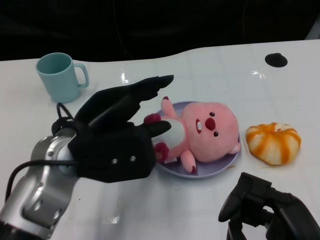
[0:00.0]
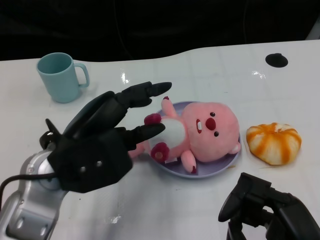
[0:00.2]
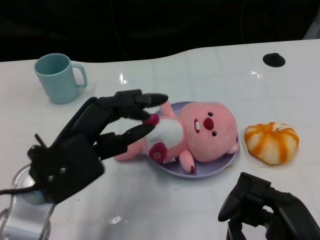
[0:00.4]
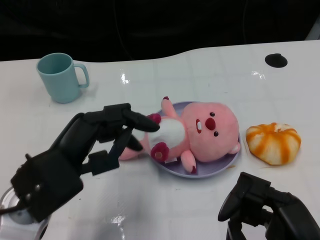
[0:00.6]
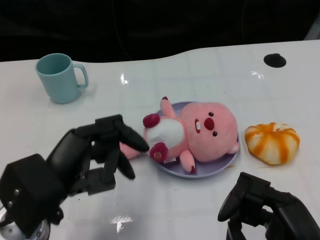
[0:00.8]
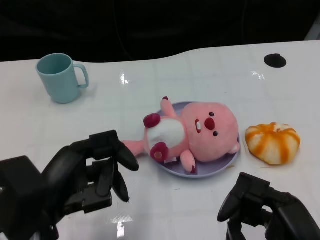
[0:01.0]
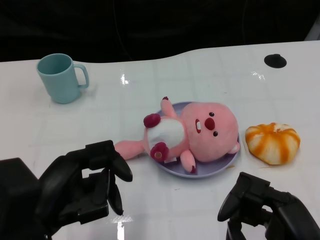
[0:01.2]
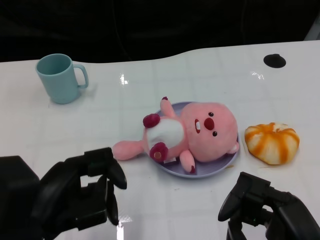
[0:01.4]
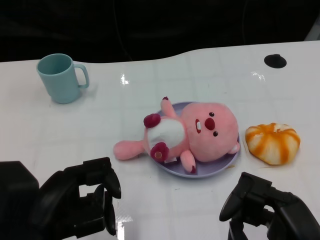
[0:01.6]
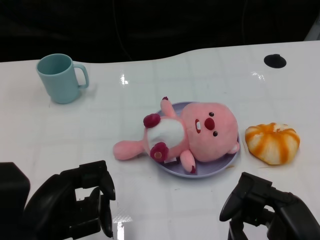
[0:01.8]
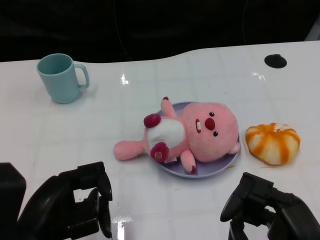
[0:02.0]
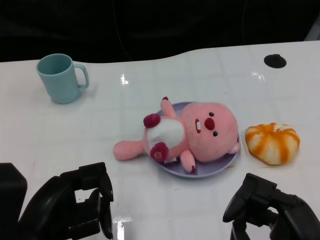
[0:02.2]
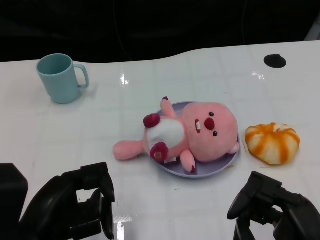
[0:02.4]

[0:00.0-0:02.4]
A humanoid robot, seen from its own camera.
Task of the whole recording: Pick up the doll on one side of the plate and place it into the plate.
0:00.0 to 0:01.2: The left hand shifts about 10 cm backward and to the left.
0:01.2 to 0:02.4: The hands make only small movements.

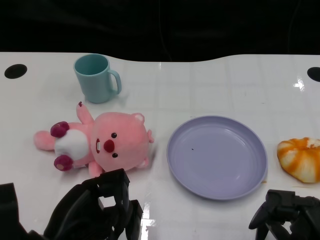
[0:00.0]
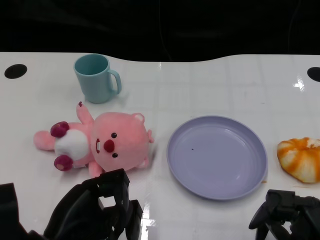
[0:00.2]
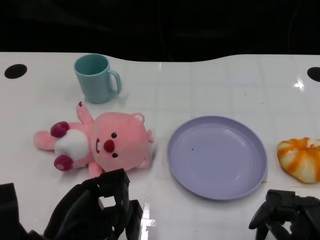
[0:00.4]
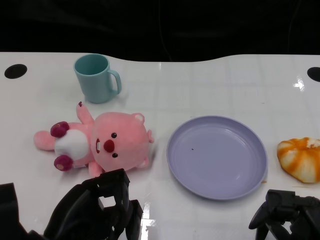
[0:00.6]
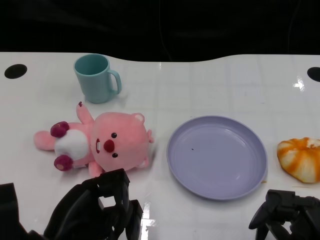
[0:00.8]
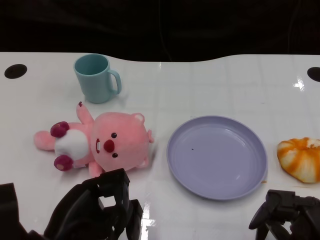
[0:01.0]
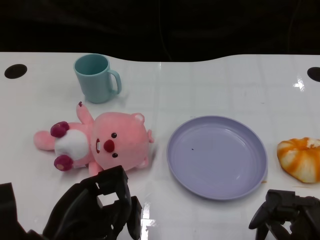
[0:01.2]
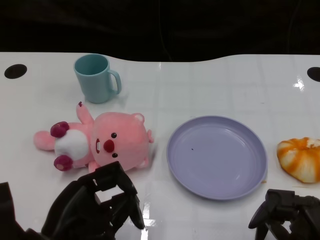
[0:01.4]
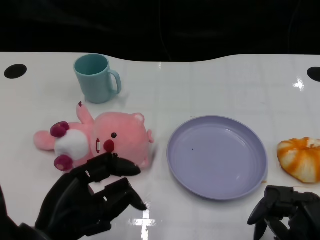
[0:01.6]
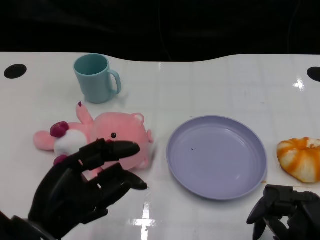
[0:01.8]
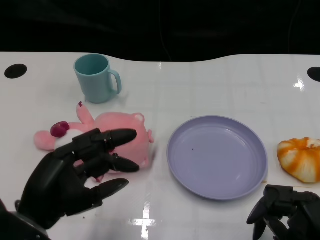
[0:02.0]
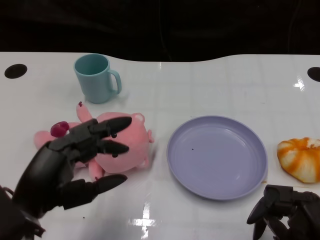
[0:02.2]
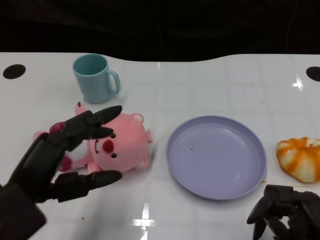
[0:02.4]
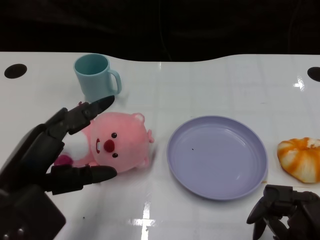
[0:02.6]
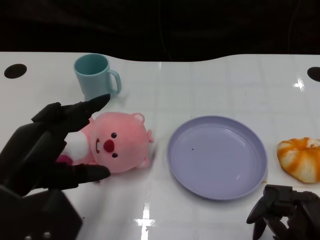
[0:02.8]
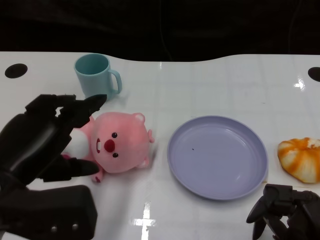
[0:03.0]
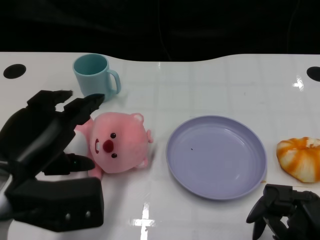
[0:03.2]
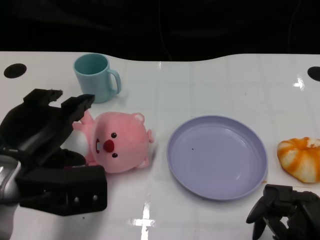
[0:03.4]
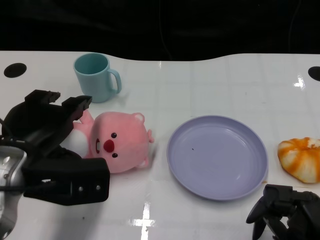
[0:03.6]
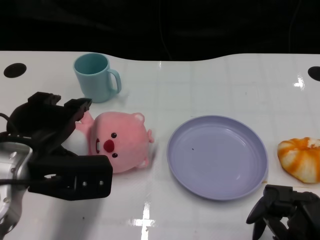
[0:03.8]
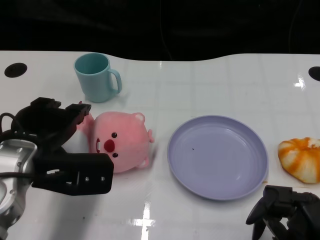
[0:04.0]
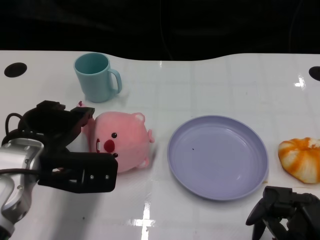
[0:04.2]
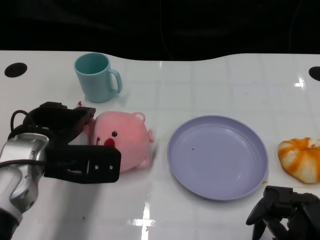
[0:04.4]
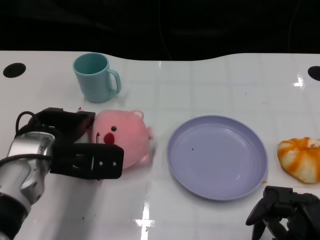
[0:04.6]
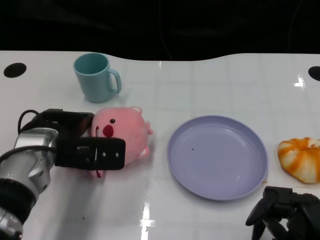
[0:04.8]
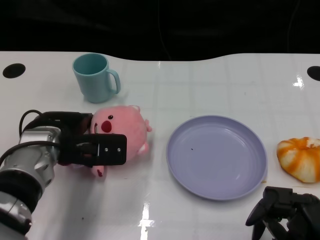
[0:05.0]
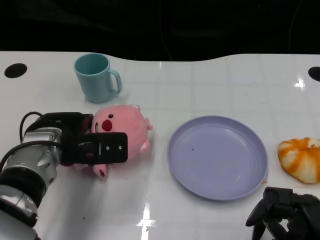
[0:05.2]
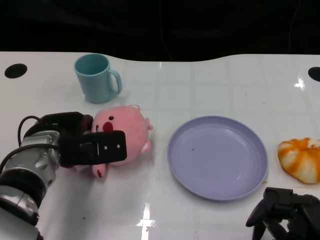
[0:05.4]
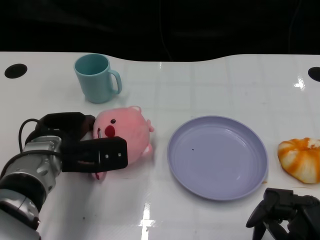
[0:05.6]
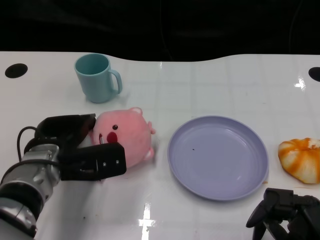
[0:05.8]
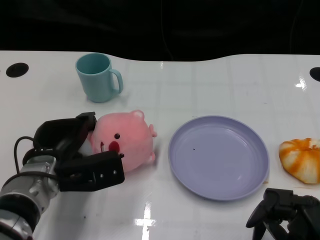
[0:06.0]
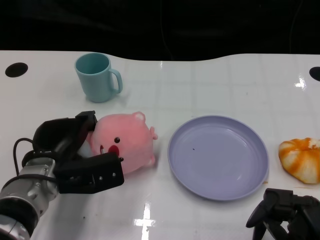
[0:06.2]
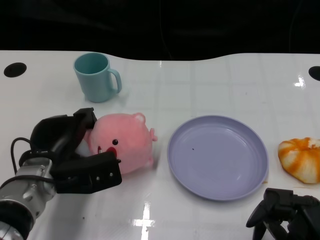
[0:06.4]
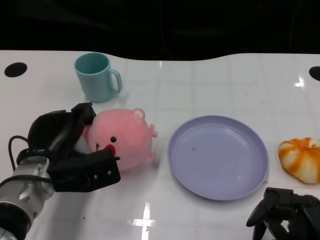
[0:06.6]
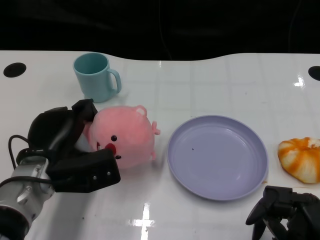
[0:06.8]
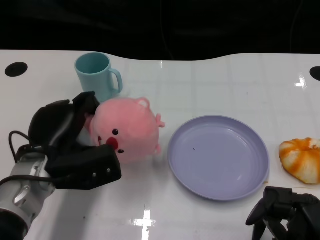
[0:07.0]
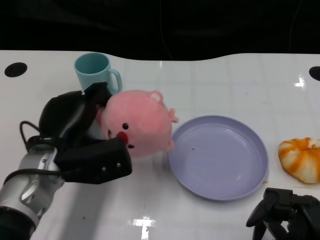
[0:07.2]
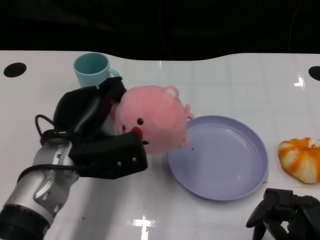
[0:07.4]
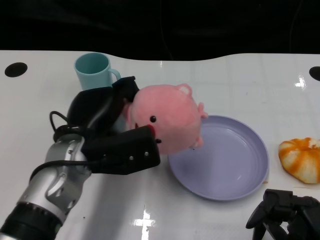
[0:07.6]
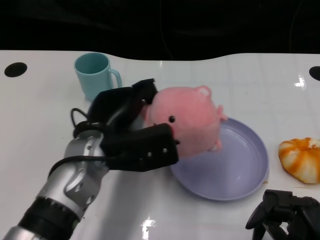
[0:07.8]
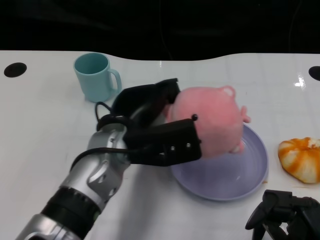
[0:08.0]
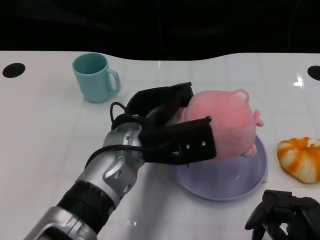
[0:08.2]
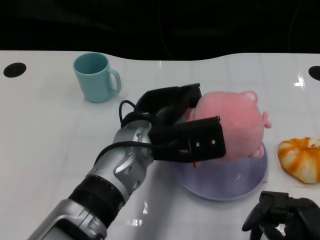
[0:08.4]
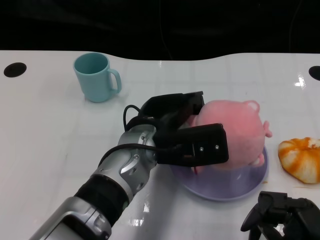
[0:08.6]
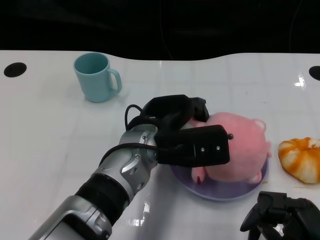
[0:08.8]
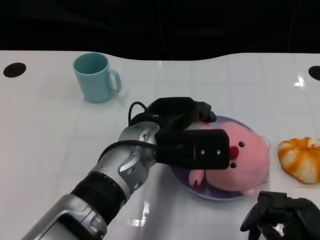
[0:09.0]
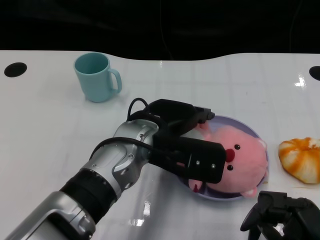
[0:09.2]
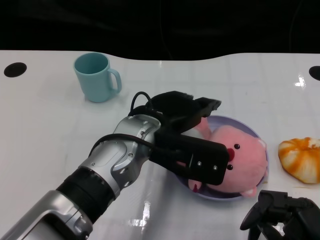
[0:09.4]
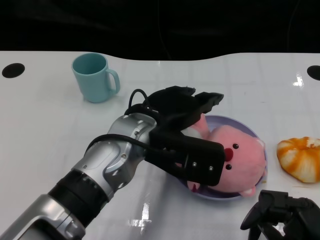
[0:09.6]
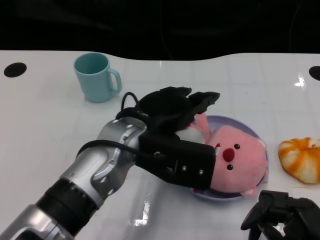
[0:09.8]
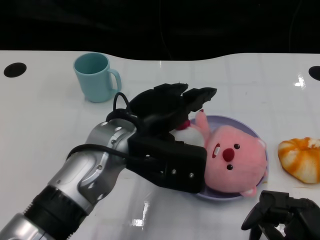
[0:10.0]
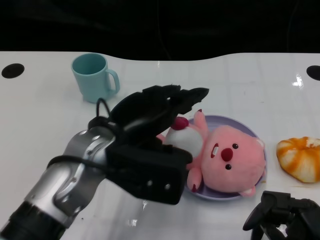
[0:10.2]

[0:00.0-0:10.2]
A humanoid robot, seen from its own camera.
Task of the whole recording: Pick up the doll on one side of the plate and place it into the plate.
Step, 0:01.2 to 0:06.2: Grasp the pink doll with the left gripper.
Step, 0:06.4 to 0:09.8: Place the pink doll into the plate with the left gripper.
0:01.4 to 0:03.0: The left hand is displaced upward by roughly 10 cm.
0:03.0 to 0:04.4: The left hand travels forward by approximately 10 cm.
0:04.4 to 0:05.8: The left hand is displaced downward by approximately 5 cm.
0:07.2 to 0:08.8: The left hand is displaced to the right by some 15 cm.
0:08.8 to 0:10.2: The left hand heads to the left, covering about 5 cm.

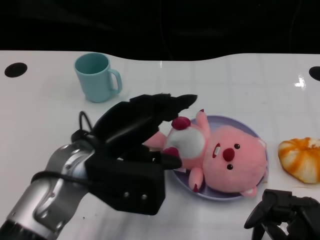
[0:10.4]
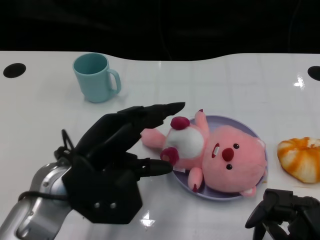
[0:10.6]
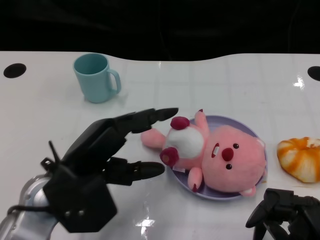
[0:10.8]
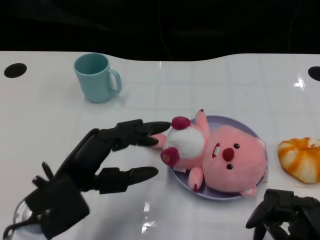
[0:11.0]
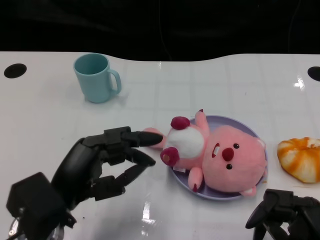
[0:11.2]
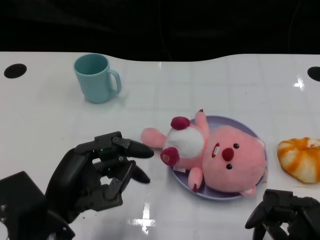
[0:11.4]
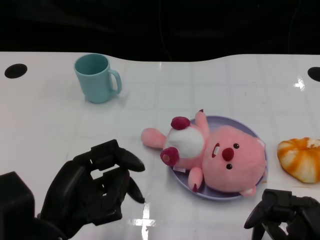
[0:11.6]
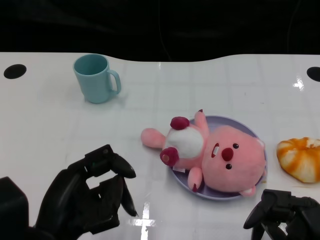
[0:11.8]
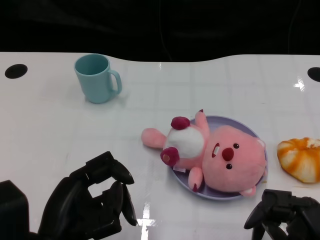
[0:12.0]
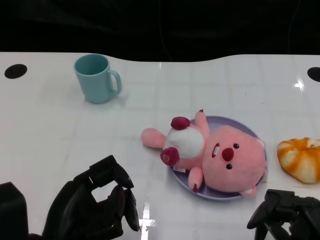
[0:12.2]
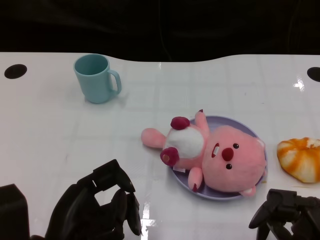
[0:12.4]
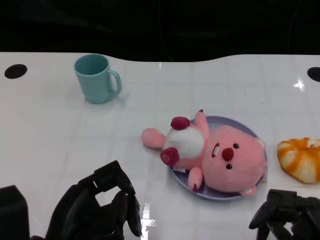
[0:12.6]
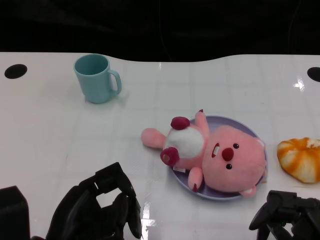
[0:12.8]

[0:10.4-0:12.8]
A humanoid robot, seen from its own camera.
Task of the whole recording: Pick up the doll on one side of the plate and place it into the plate.
0:10.4 to 0:11.6: The left hand heads backward and to the left, covering about 10 cm.
0:11.6 to 0:12.8: There are only small adjustments of the hands.

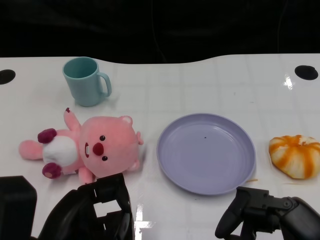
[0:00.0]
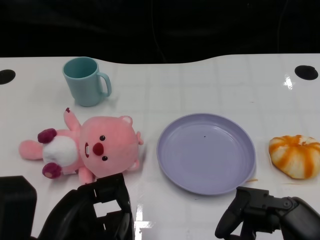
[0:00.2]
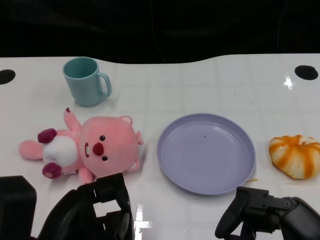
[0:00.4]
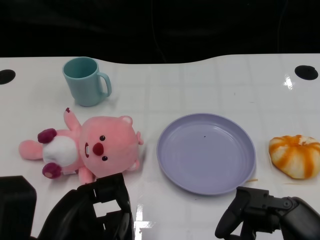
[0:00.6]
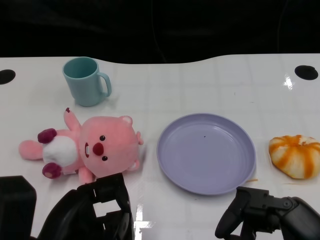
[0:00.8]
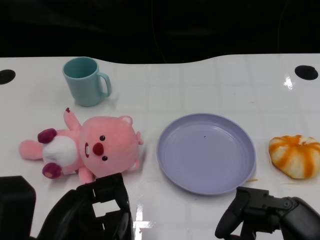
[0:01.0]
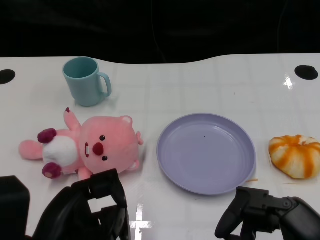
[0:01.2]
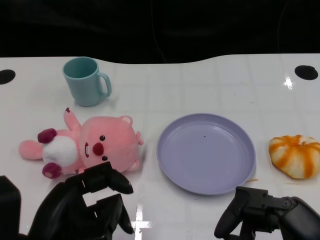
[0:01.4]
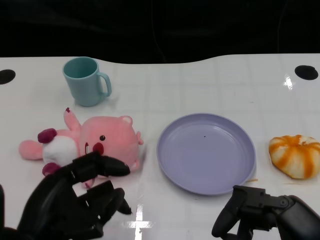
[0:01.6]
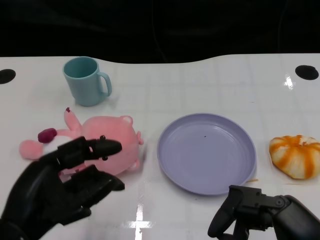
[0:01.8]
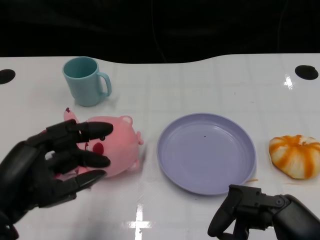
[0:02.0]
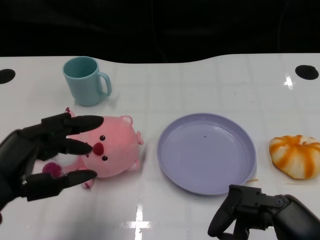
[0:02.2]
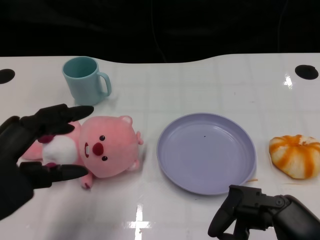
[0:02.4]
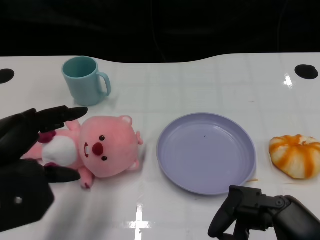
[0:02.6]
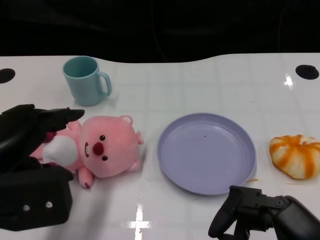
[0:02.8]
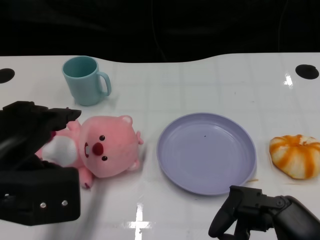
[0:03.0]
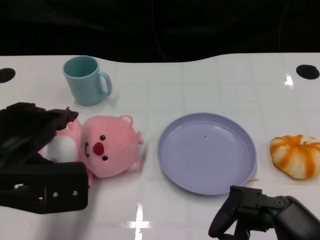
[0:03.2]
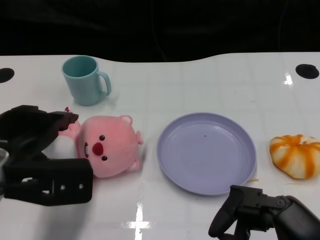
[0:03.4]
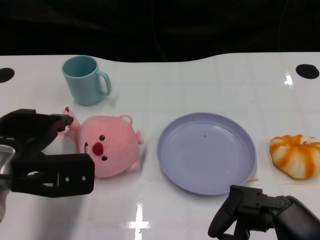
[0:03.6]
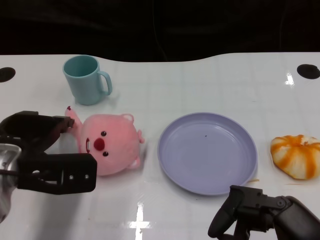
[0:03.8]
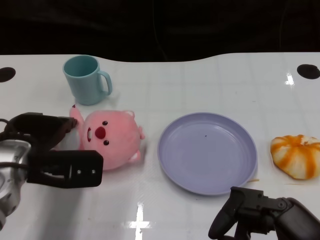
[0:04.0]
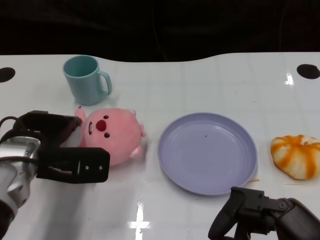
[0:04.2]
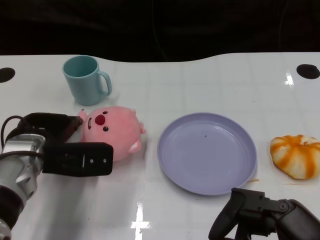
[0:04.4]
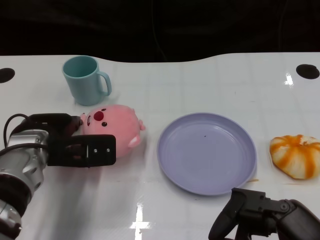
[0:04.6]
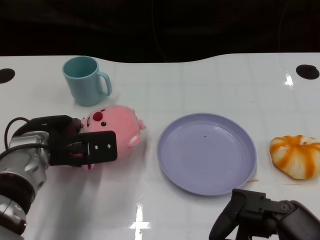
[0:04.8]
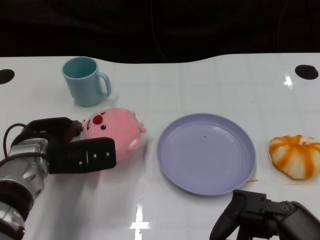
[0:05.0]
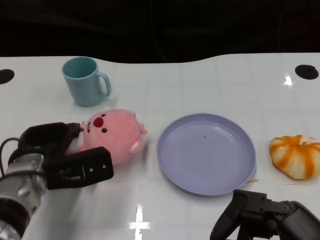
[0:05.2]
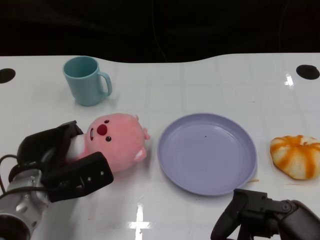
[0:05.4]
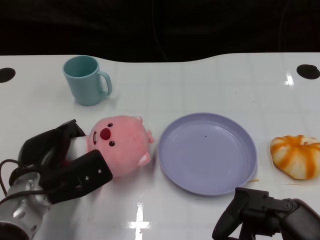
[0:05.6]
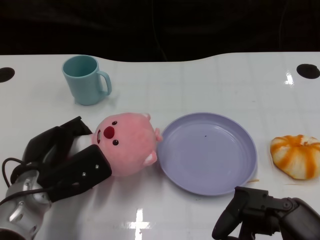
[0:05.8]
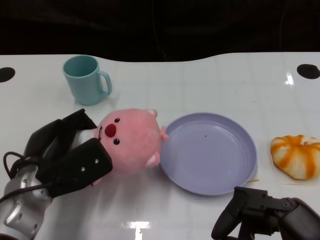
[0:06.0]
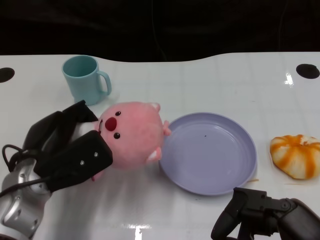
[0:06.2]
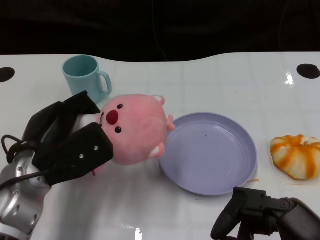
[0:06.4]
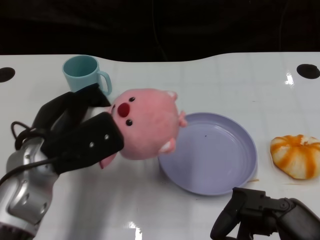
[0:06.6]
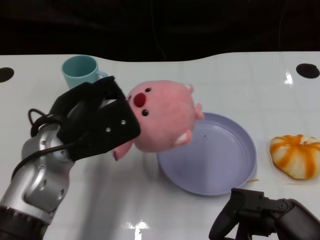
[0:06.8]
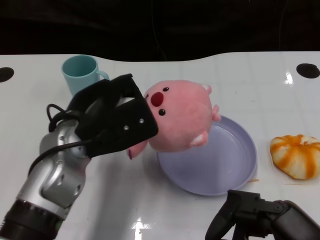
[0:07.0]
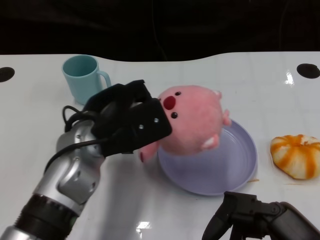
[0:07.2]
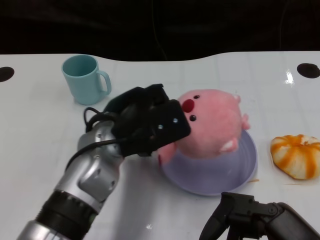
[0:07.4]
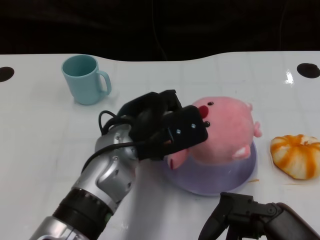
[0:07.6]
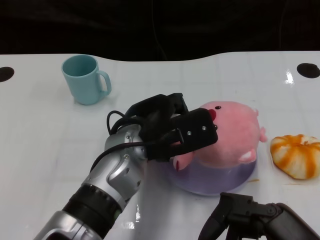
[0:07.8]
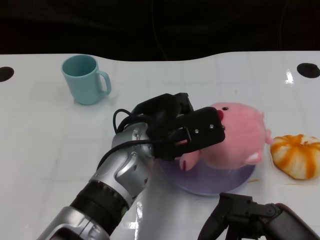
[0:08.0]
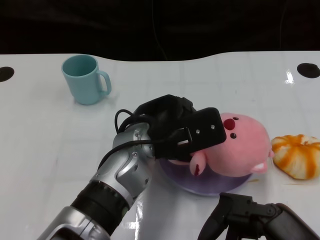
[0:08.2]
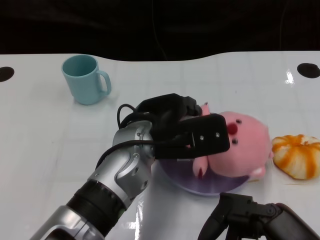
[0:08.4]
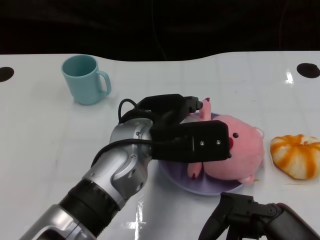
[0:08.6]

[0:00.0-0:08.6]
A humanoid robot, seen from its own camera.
Task of the whole recording: Pick up the doll on one side of the plate and place it into the plate.
Step, 0:01.2 to 0:05.6: Grasp the pink doll with the left gripper.
0:01.4 to 0:02.8: The left hand is displaced upward, to the left and forward by roughly 10 cm.
0:02.8 to 0:04.4: The left hand is displaced forward and downward by some 15 cm.
0:04.4 to 0:05.8: The left hand moves roughly 5 cm.
0:05.8 to 0:07.2: The left hand is displaced upward and to the right by approximately 10 cm.
0:07.2 to 0:08.6: The left hand travels to the right by roughly 5 cm.
